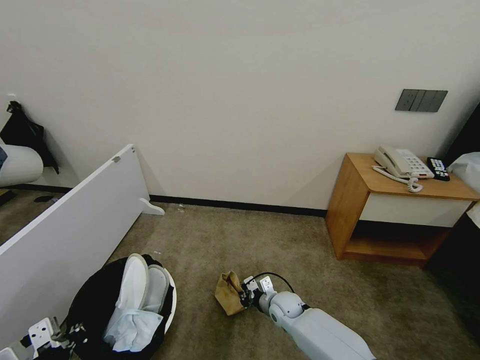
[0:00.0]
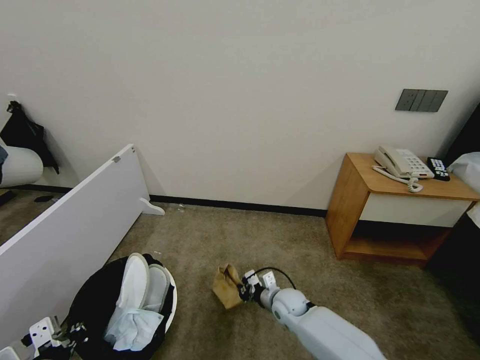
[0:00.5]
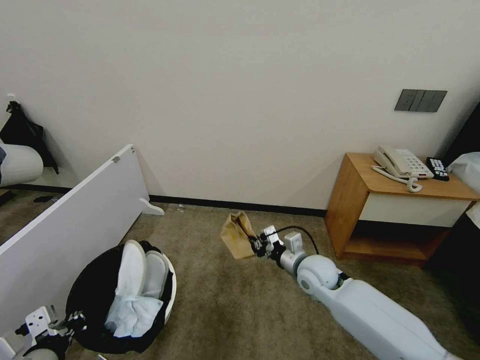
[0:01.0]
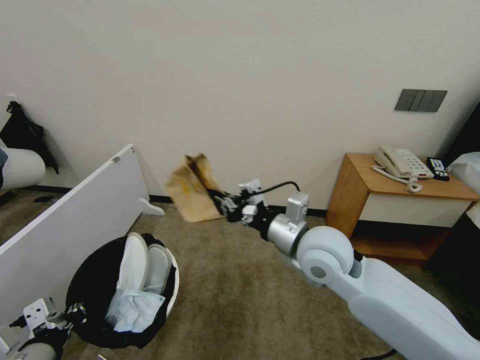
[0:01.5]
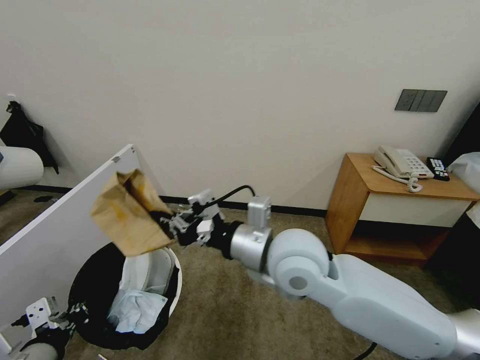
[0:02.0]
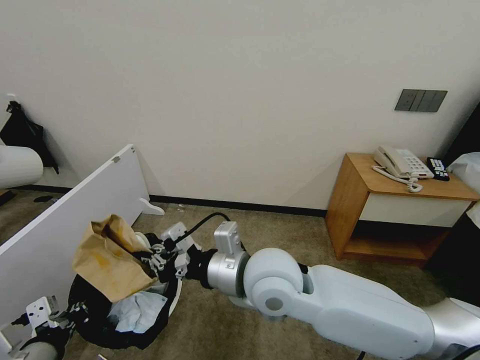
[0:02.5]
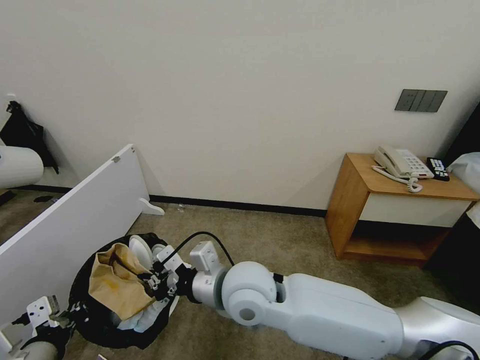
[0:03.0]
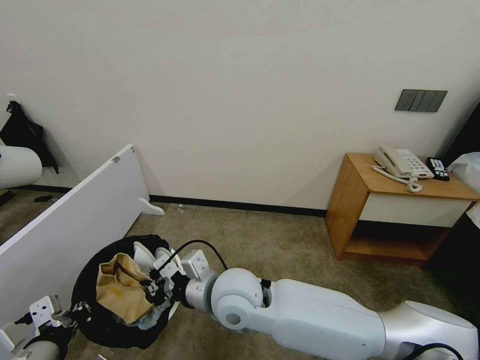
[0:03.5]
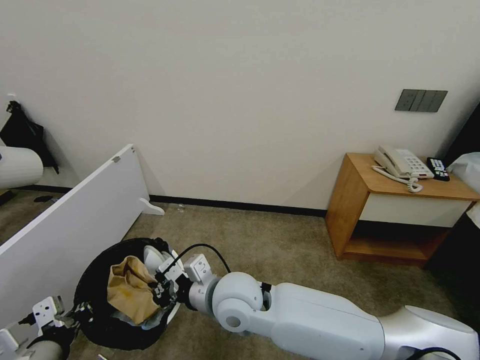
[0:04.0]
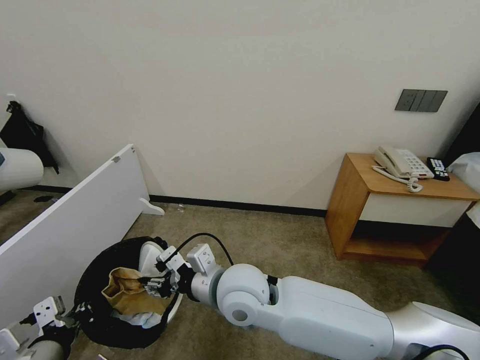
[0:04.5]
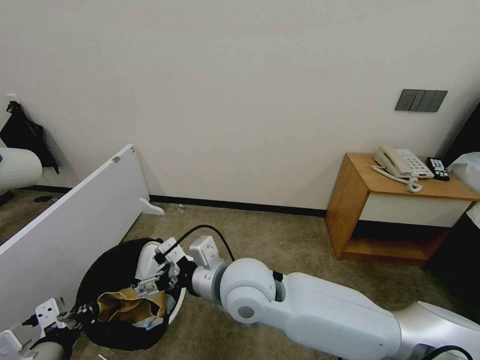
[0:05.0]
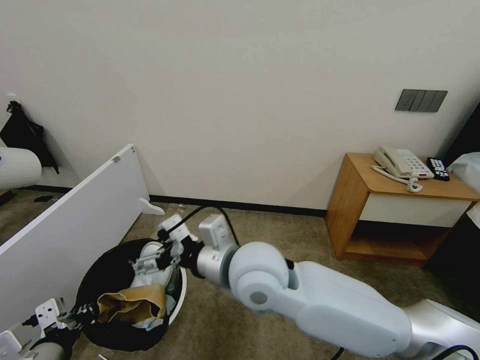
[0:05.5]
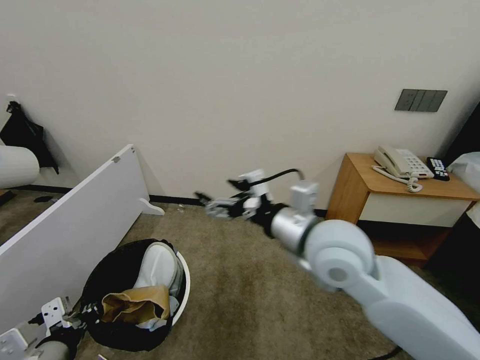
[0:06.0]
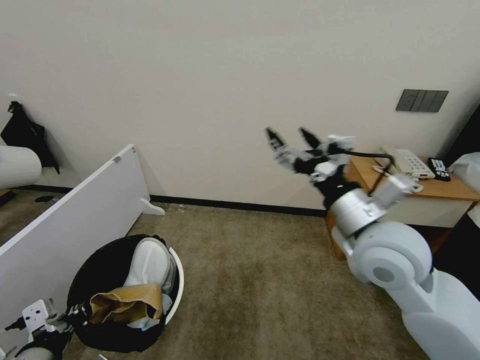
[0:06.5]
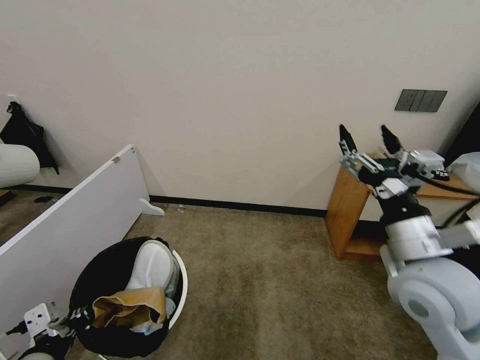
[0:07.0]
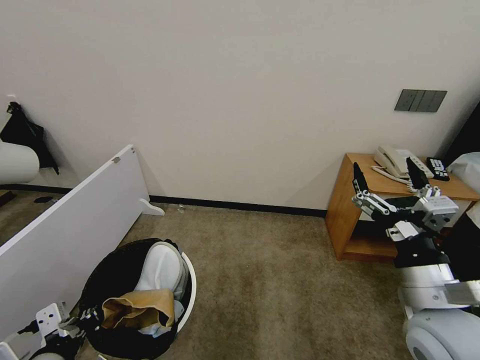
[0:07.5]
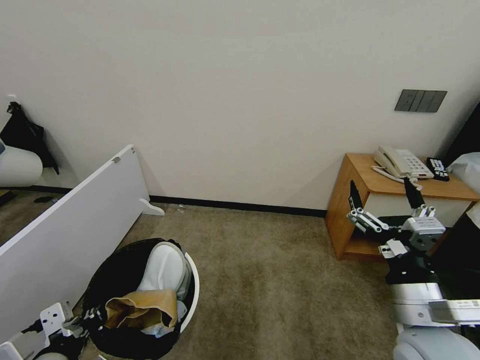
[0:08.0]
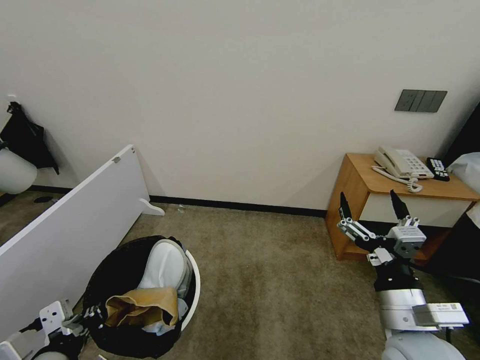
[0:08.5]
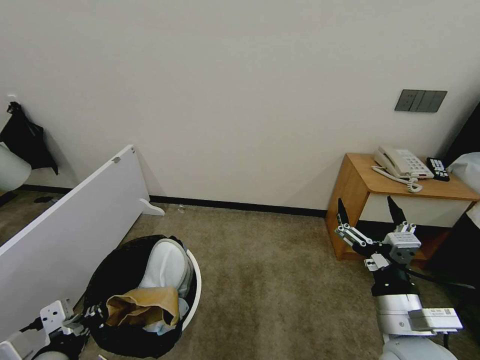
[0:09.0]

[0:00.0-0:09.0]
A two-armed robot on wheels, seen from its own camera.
Task of the whole recording: Pick up the trash bin, then pick up the garbage from the floor and place it into the trash bin.
0:00.0 to 0:02.0: The right gripper shifts roughly 40 cm upward.
0:02.0 to 0:04.5: The right gripper heads to the left and downward, covering about 10 cm, and opens its fingers.
0:04.5 to 0:07.0: The right gripper travels to the right by roughly 30 cm, and opens.
0:07.0 to 0:09.0: The right gripper moves downward and backward, about 10 cm.
